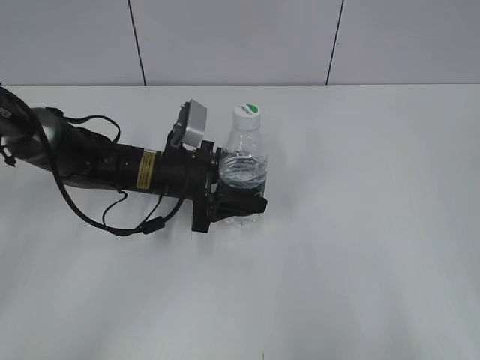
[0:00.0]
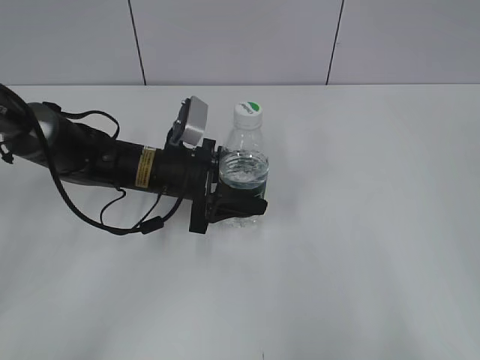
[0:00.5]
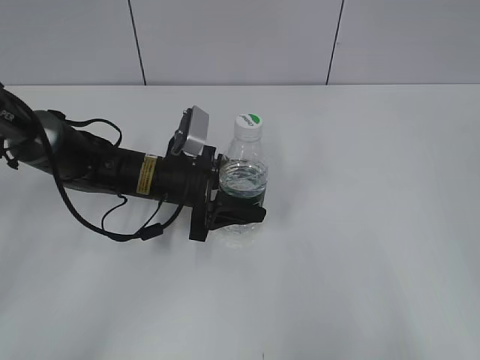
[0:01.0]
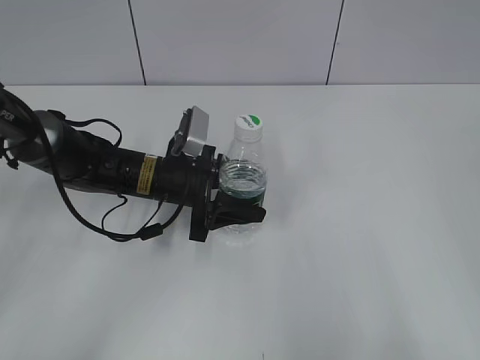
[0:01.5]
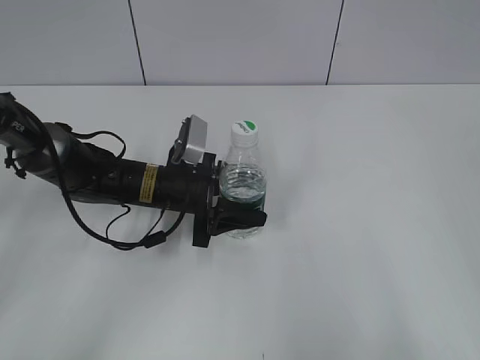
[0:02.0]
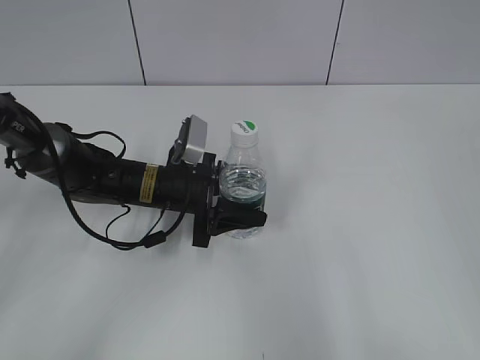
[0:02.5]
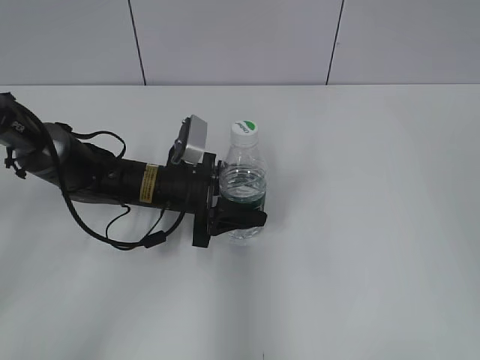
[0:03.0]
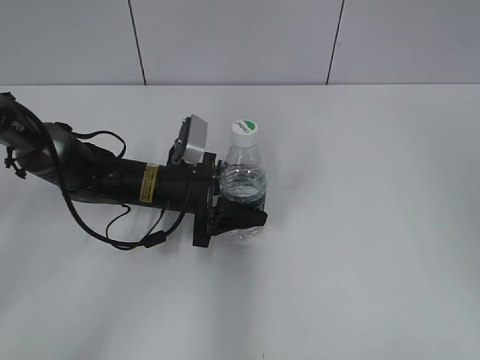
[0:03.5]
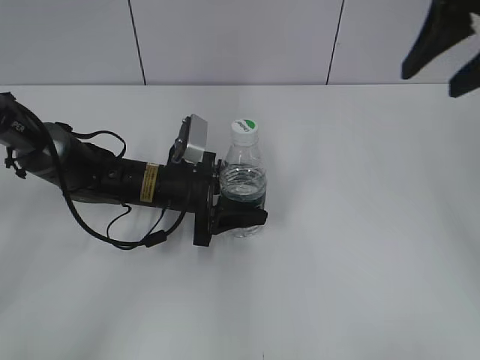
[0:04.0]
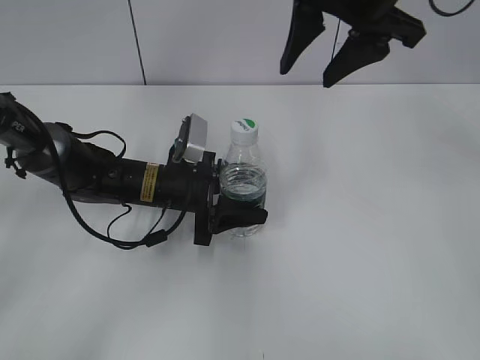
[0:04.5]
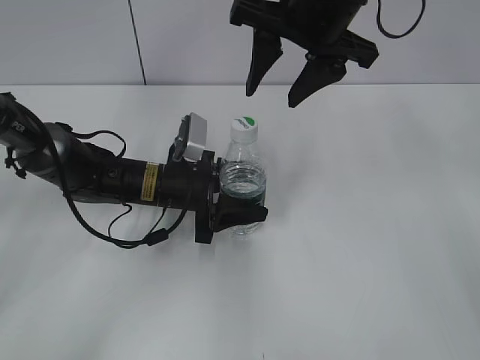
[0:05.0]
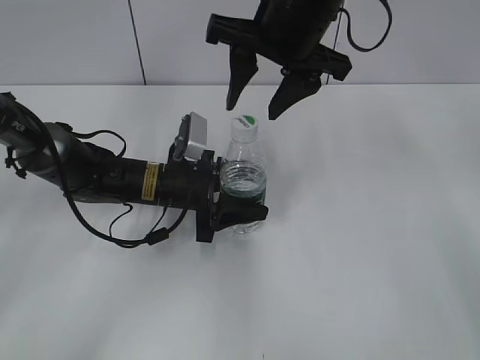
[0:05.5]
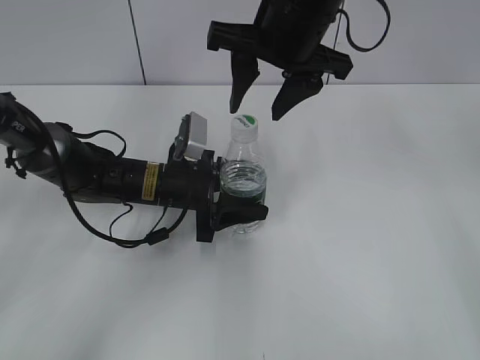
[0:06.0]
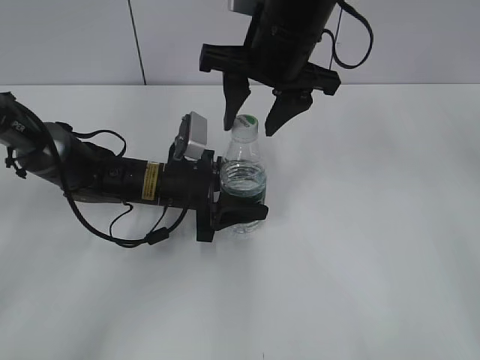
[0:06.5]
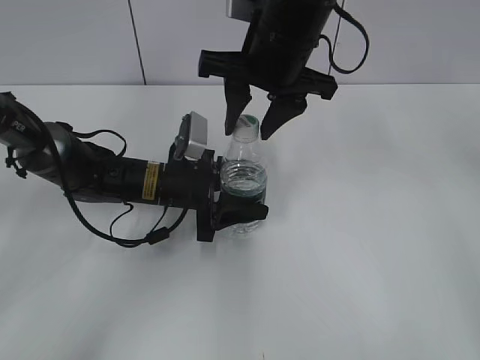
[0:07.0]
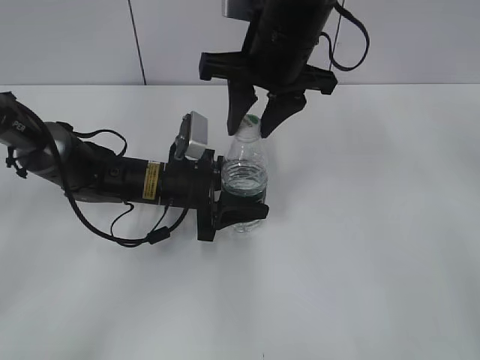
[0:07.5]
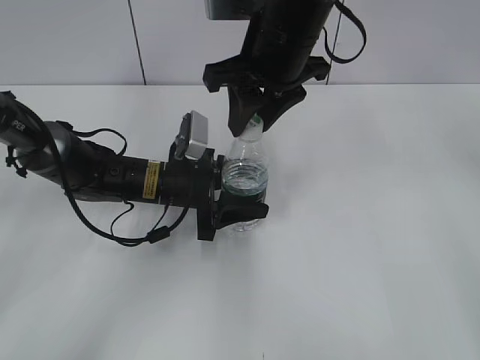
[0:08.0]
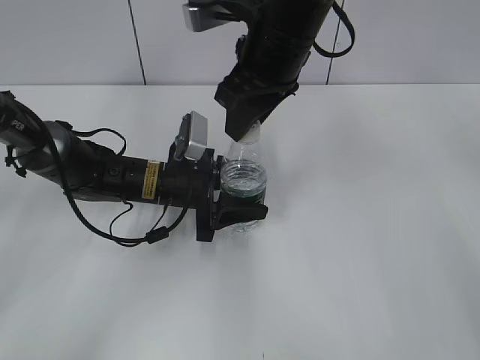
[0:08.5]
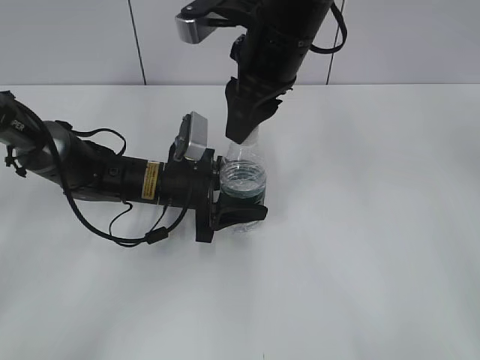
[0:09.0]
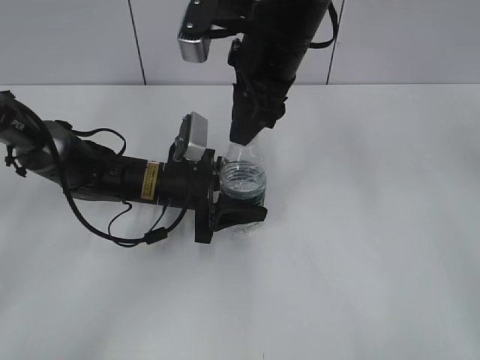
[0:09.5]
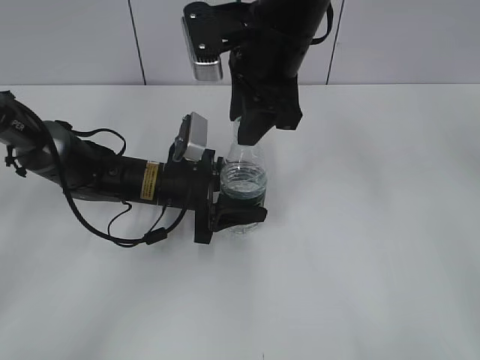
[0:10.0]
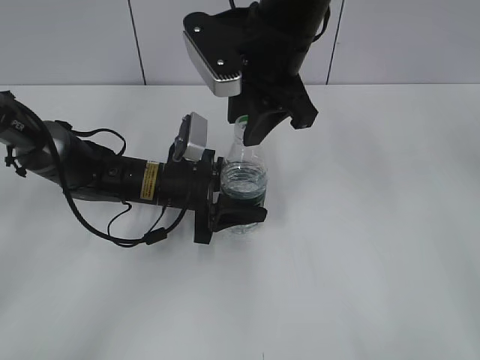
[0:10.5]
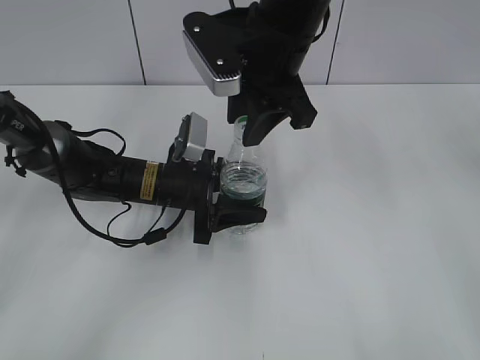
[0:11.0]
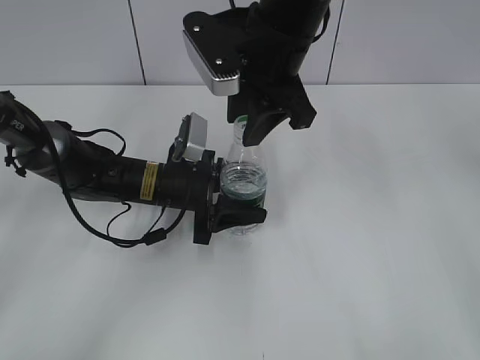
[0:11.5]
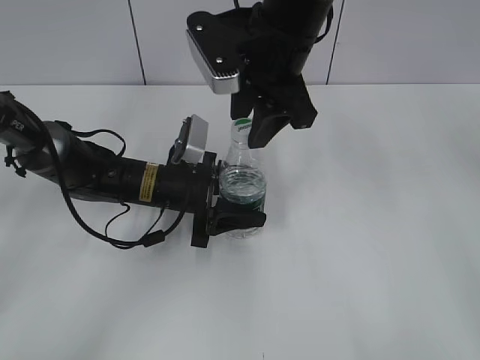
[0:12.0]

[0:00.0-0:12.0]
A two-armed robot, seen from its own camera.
Step, 0:00.0 to 0:02.0: Lift the bottle and move it to the center of the table with the left gripper.
0:00.0 to 0:02.0: The grippers make only small movements.
0:02.0 to 0:04.0: The right gripper is displaced forward by some 30 cm.
0:04.0 to 0:06.0: The right gripper travels to the left and downward by roughly 20 cm.
0:06.0 to 0:08.0: The right gripper closes.
0:10.0 to 0:12.0: The right gripper opens its fingers.

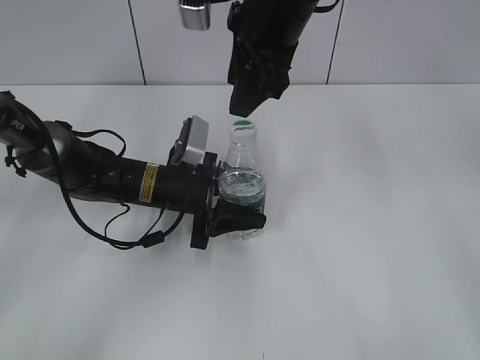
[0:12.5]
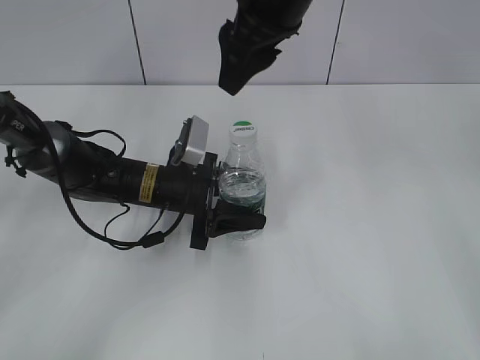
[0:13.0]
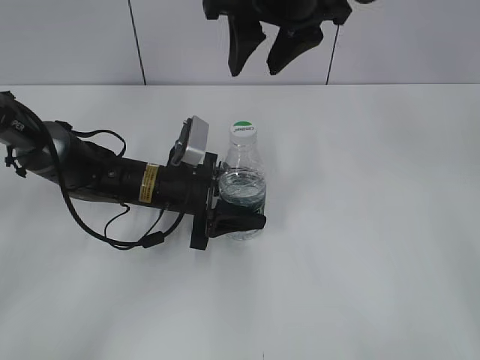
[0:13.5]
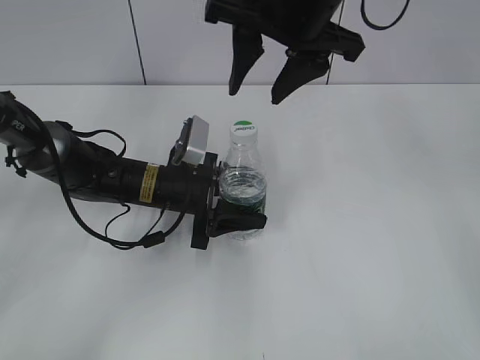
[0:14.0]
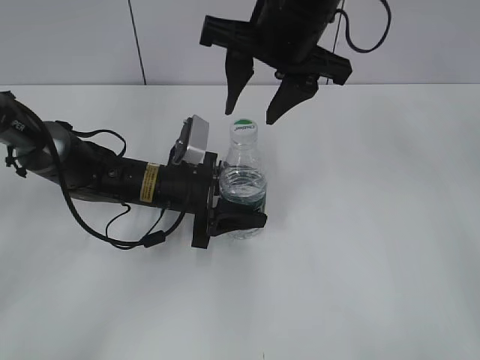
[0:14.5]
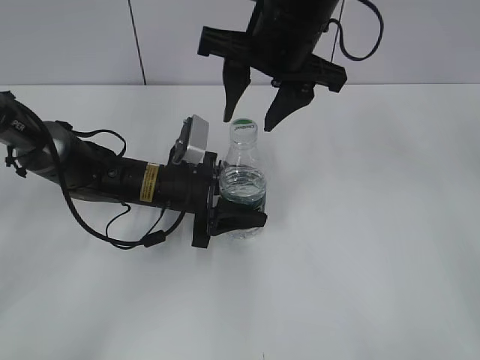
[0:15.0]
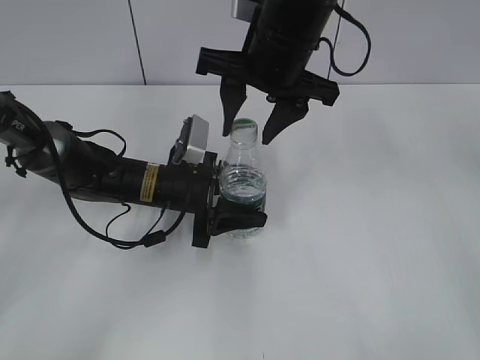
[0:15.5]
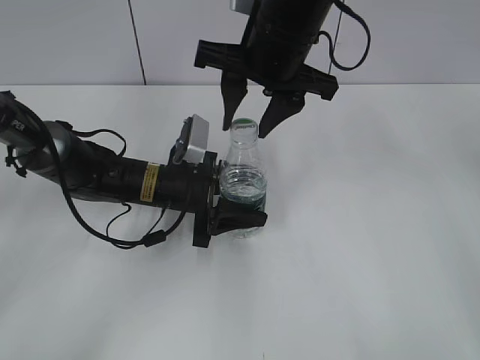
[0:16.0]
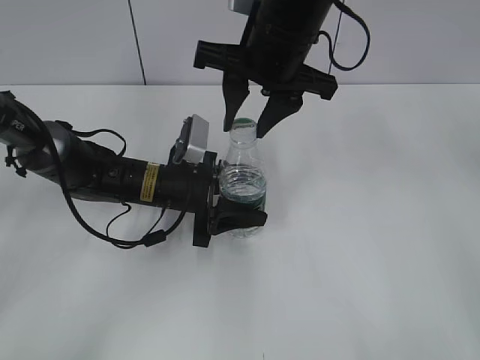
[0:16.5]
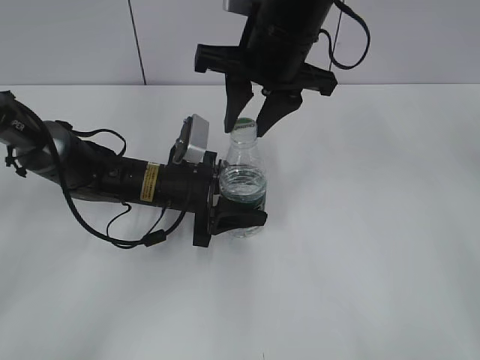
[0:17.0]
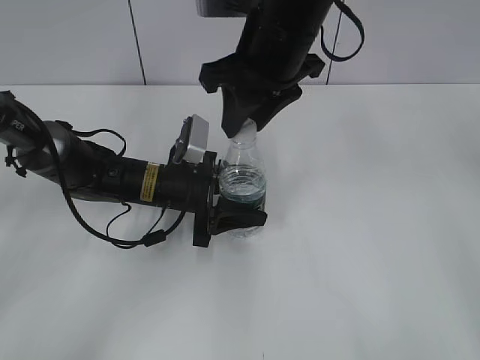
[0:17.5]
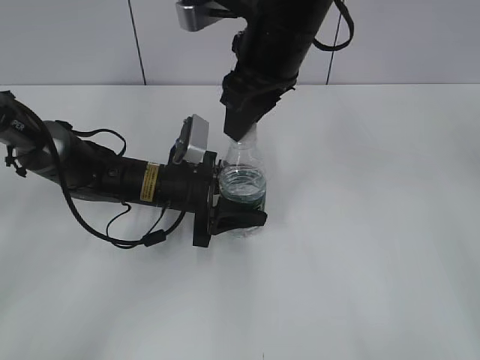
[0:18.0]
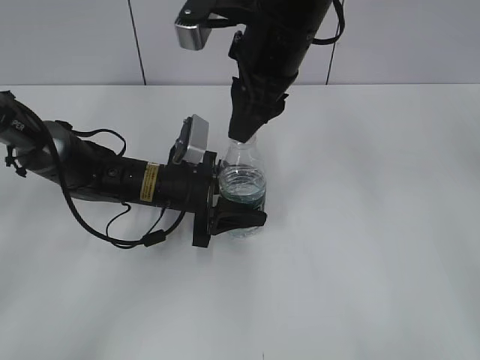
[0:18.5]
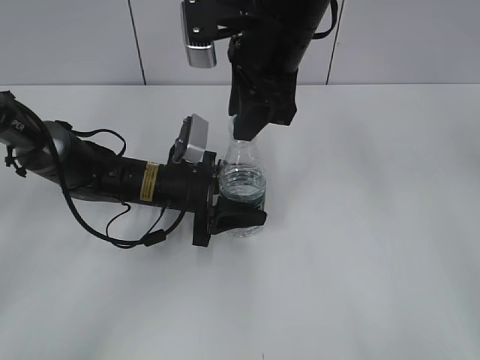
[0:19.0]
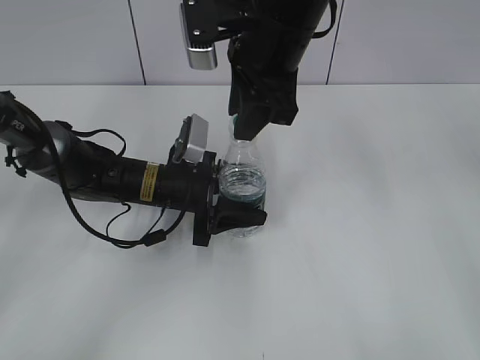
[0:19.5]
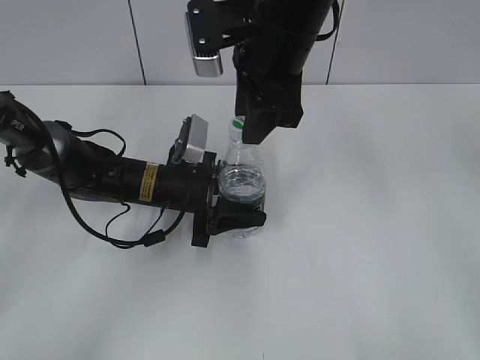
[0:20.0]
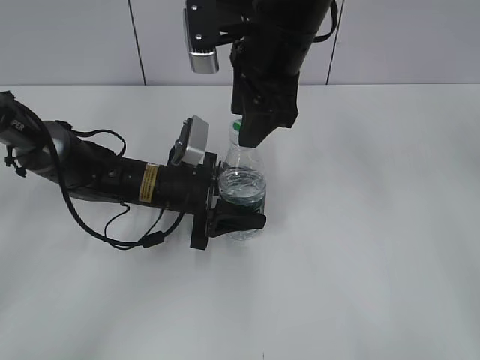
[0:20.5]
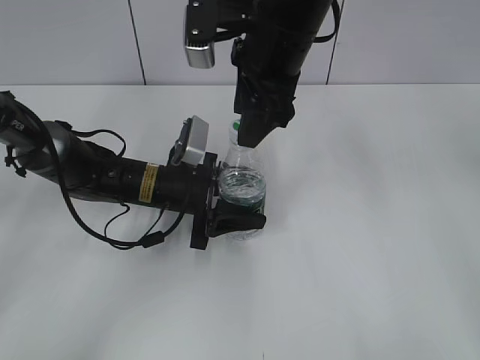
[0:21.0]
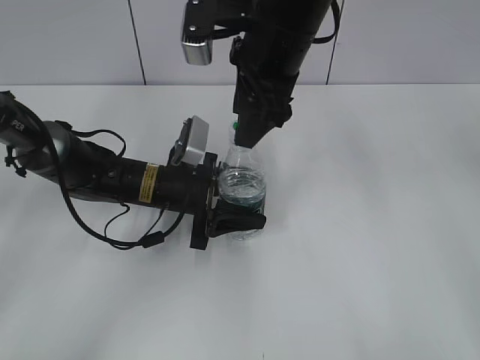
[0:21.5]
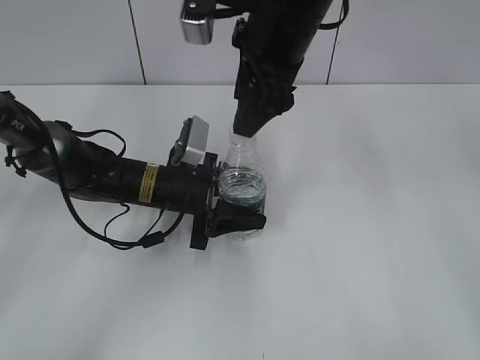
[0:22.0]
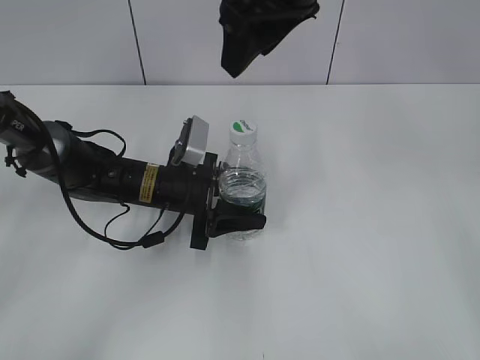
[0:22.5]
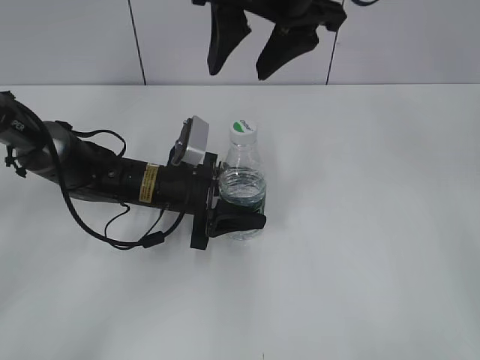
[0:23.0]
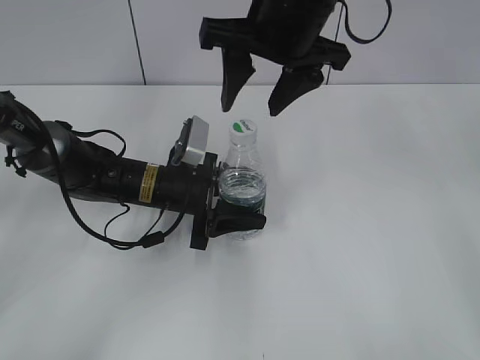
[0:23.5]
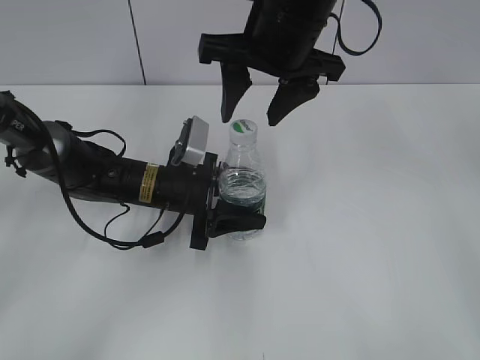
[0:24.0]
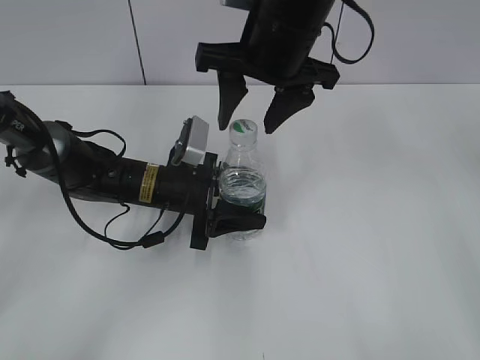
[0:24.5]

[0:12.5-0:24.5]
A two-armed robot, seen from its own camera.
0:14.5 to 0:16.5: The right gripper closes up.
0:18.5 to 0:20.5: The right gripper opens.
0:20.5 to 0:22.5: The right gripper shifts some 5 cm upward.
0:22.5 to 0:24.5: The right gripper heads downward, covering some 5 cm.

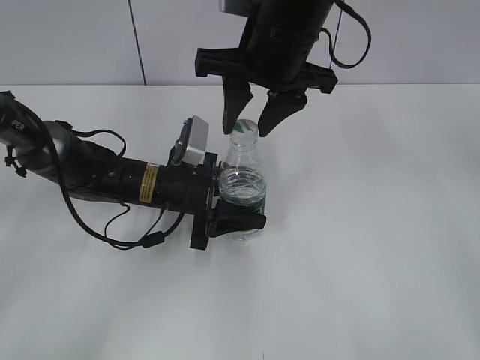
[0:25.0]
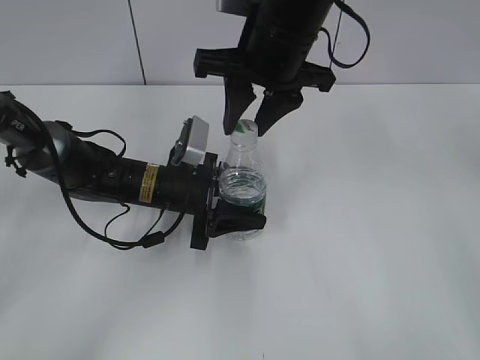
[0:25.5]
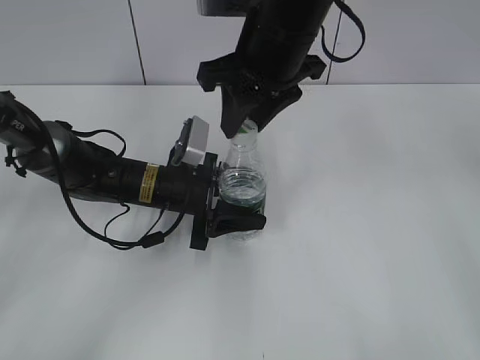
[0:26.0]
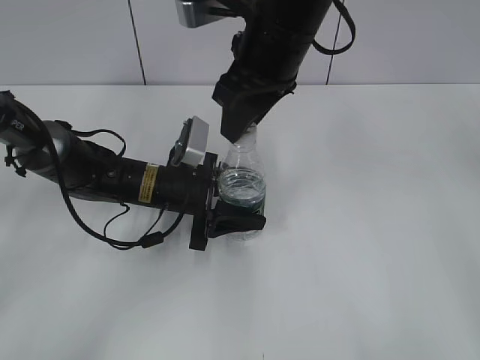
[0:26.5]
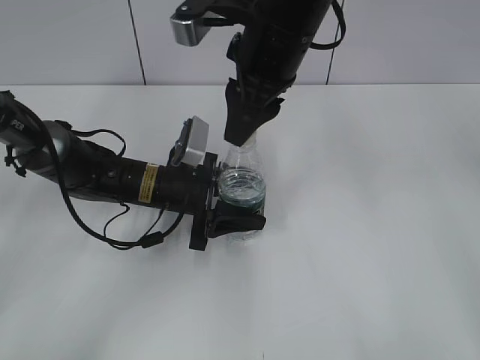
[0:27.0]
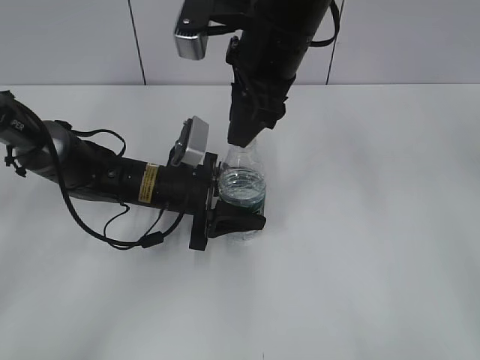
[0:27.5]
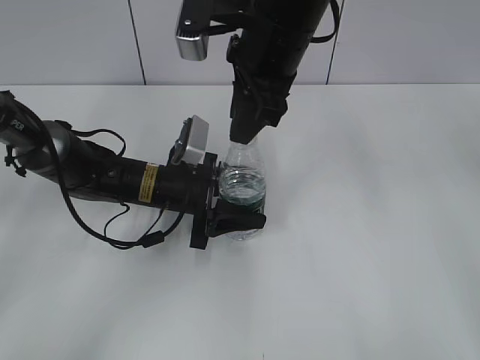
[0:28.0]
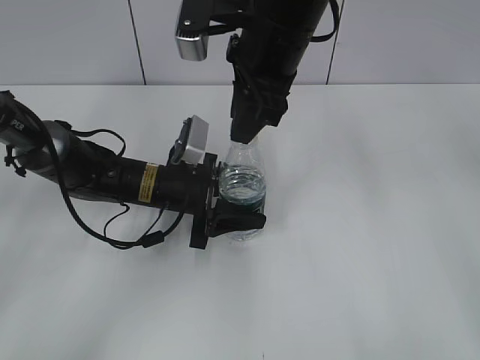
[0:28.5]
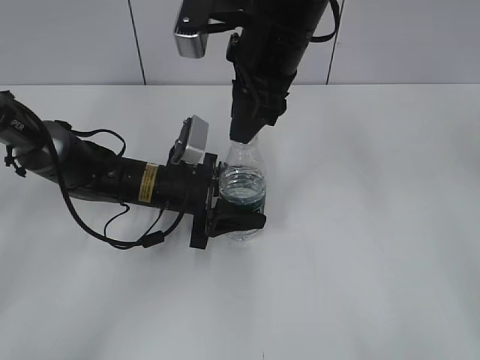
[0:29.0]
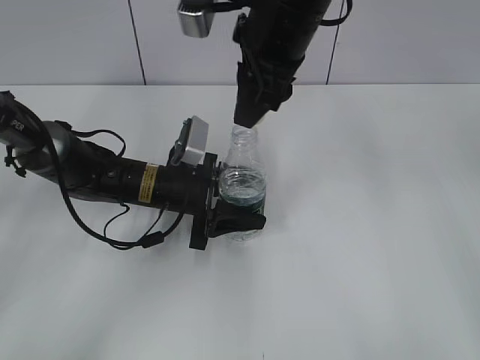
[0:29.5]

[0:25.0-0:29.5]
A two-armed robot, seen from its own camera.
0:25.0 to 0:27.0: The right gripper closes.
0:27.0 to 0:29.5: The grippers move only a little.
